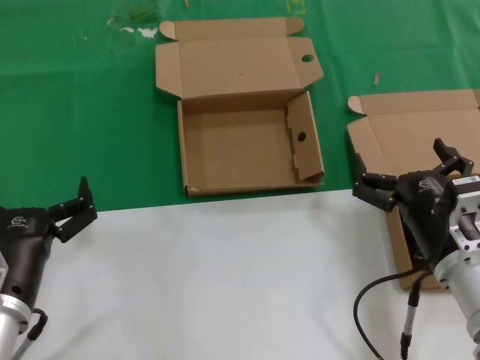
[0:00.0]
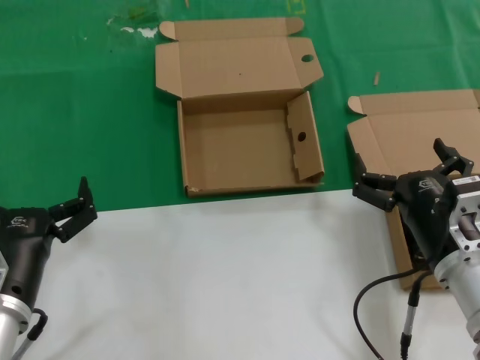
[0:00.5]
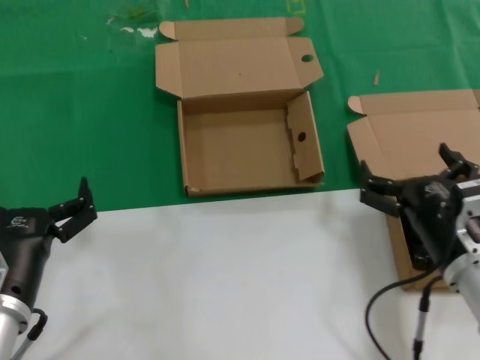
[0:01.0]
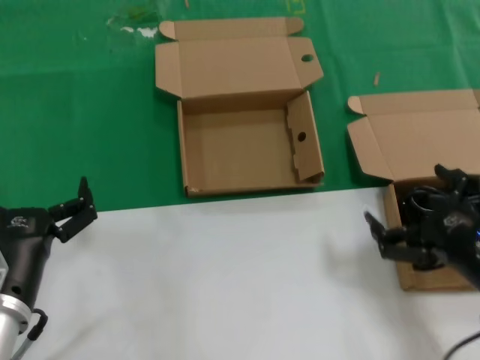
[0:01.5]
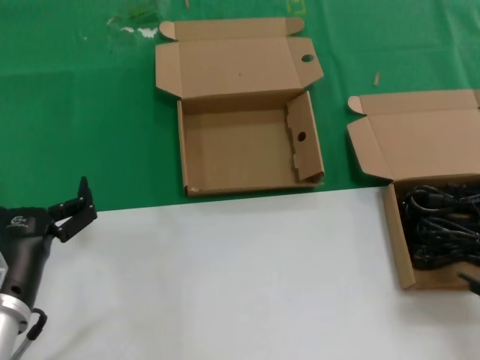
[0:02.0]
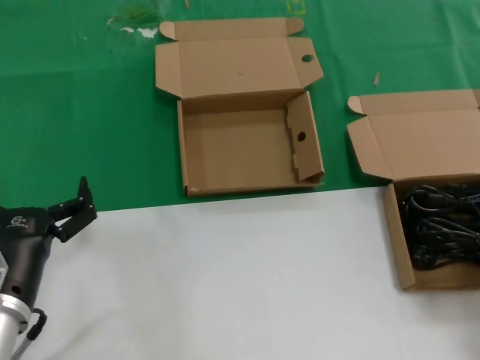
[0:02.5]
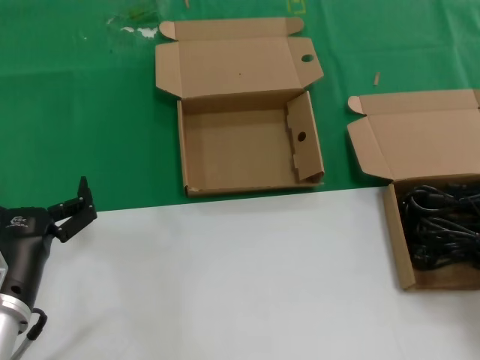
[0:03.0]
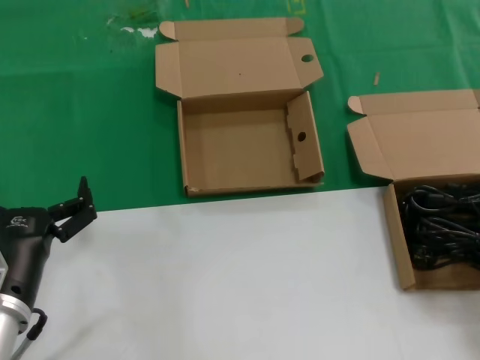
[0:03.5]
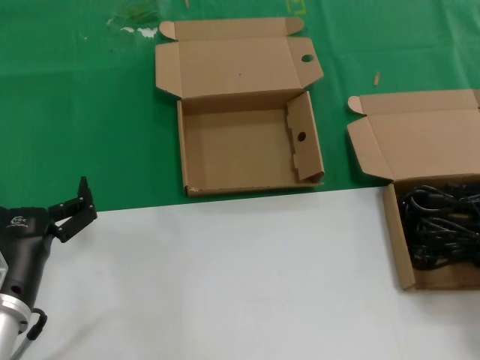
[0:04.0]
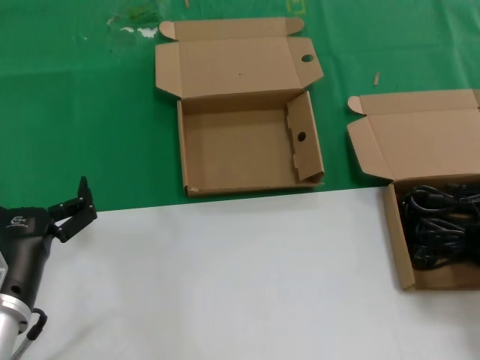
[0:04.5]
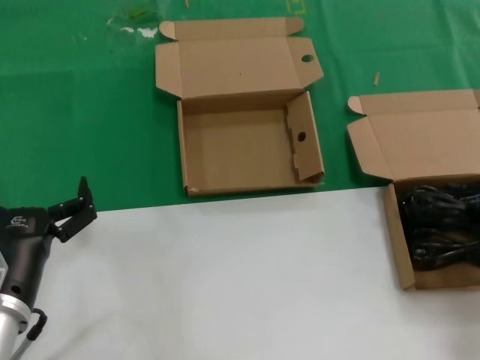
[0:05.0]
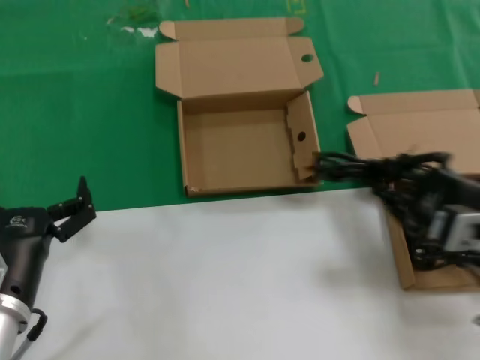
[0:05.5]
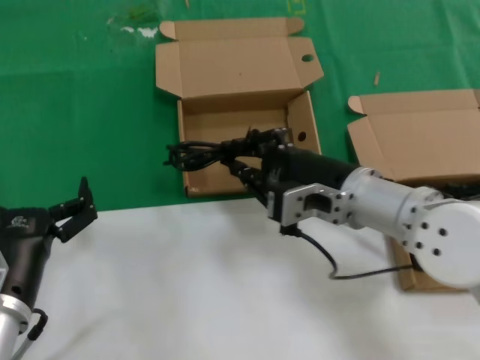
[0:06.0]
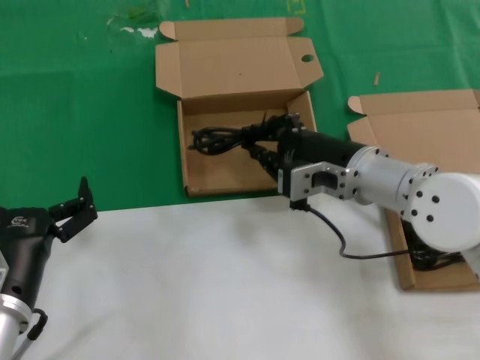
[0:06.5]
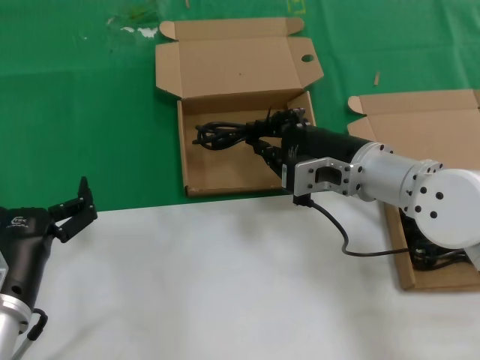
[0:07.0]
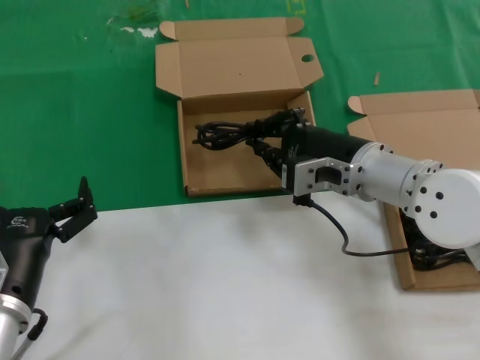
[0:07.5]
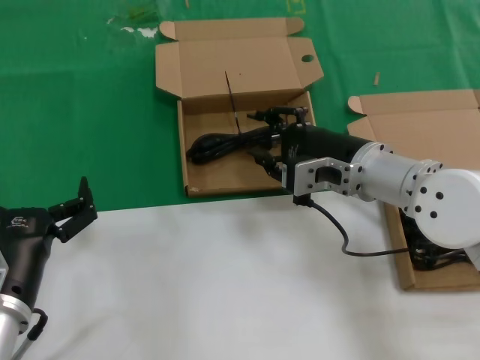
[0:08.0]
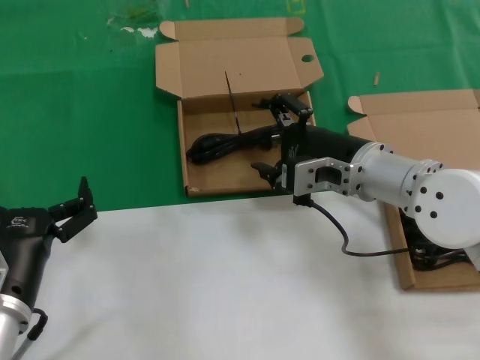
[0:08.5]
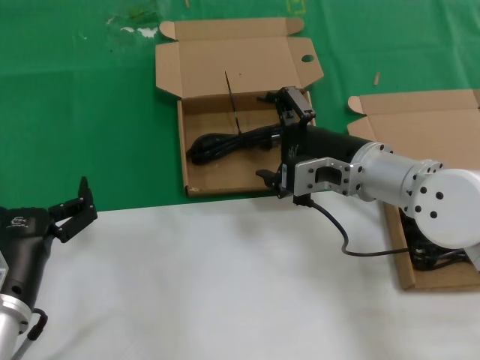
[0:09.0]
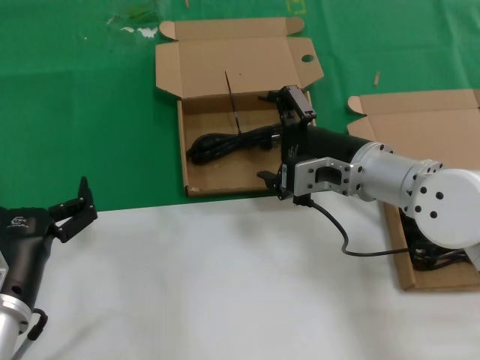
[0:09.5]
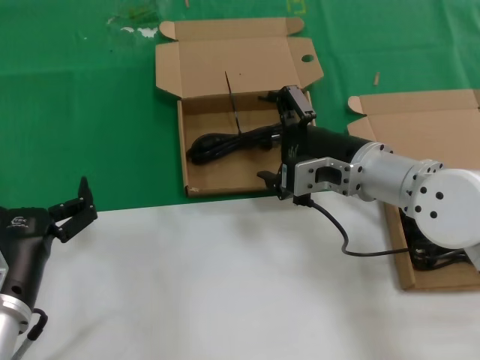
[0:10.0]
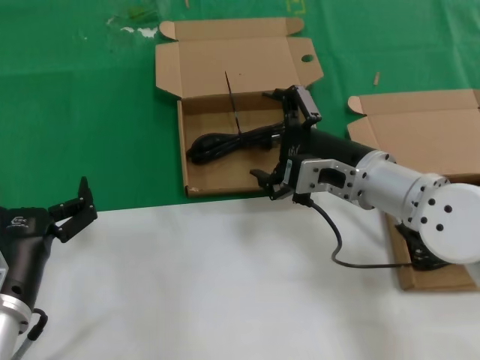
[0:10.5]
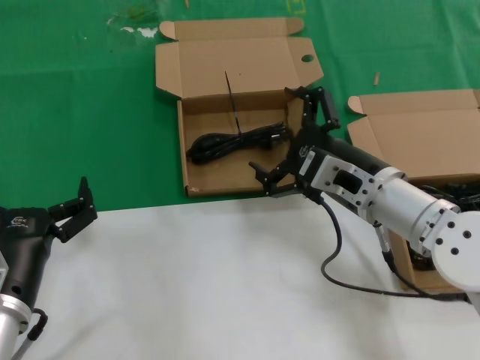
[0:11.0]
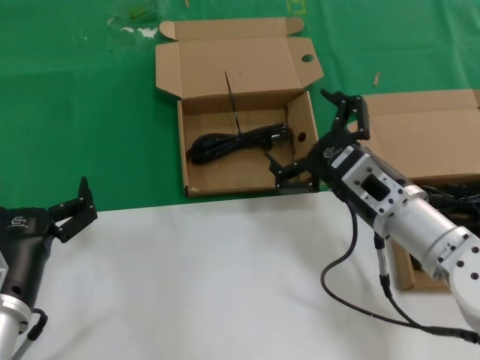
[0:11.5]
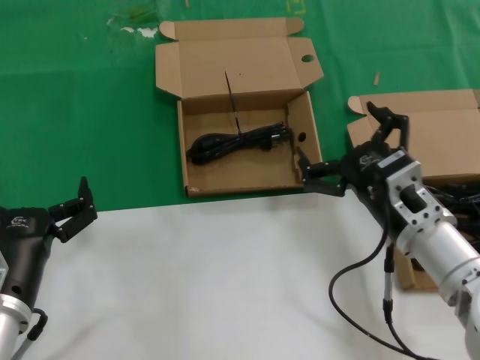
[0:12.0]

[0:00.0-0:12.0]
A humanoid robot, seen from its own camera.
Task of the whole recording: take the parts from the box containing them and put them into an empty box.
Step, 0:00.0 to 0:05.0: Grasp the data cable.
Step, 0:05.5 to 0:09.0: Place the data cable in the another box.
0:00.0 to 0:02.0: The right hand shifts some 20 cm to the right, upward and backward.
0:02.0 to 0:04.0: The right hand shifts by about 5 cm.
0:04.0 to 0:06.0: The right hand shifts approximately 30 cm to the left and forward.
0:06.0 to 0:08.0: The hands move only a little.
0:08.0 to 0:10.0: Neither hand changes place.
0:10.0 to 0:12.0: The right hand heads backward and downward, covering roughly 10 cm.

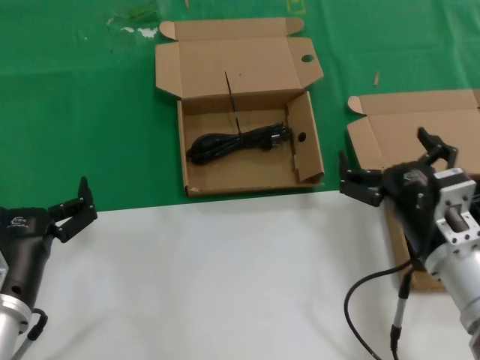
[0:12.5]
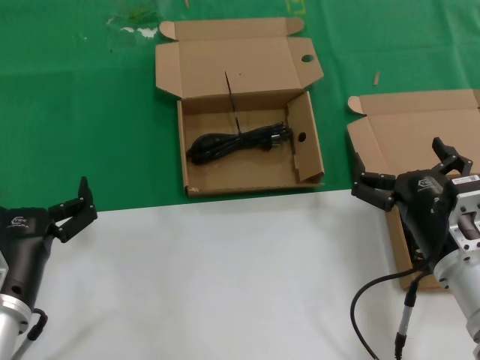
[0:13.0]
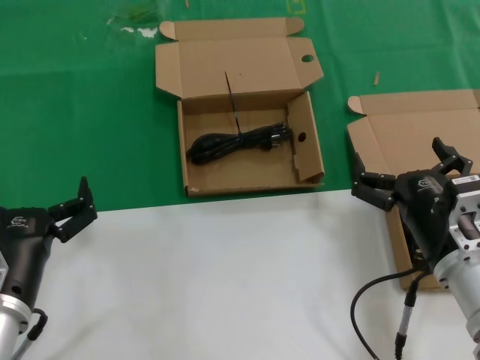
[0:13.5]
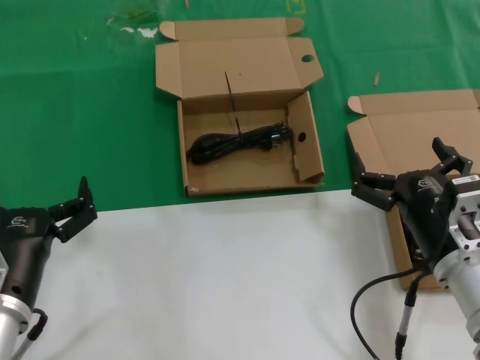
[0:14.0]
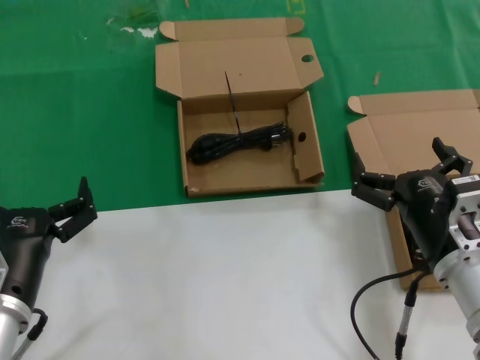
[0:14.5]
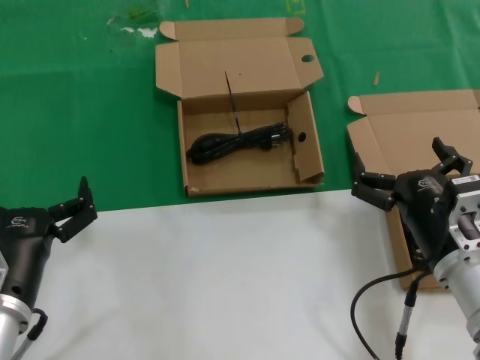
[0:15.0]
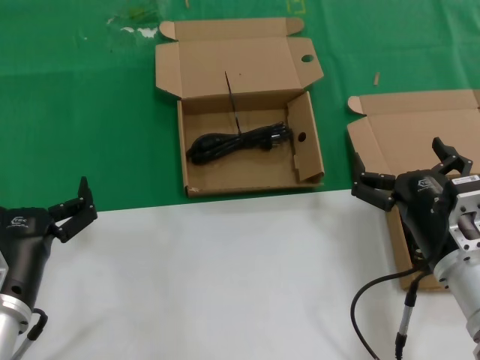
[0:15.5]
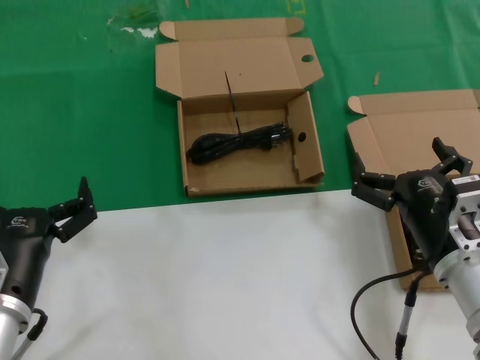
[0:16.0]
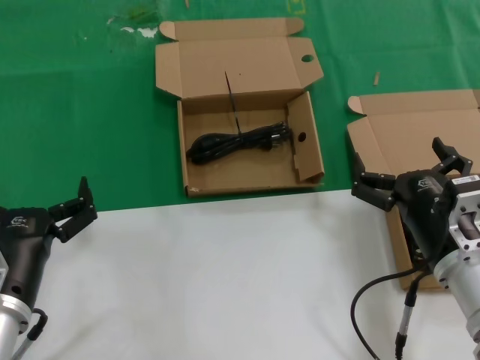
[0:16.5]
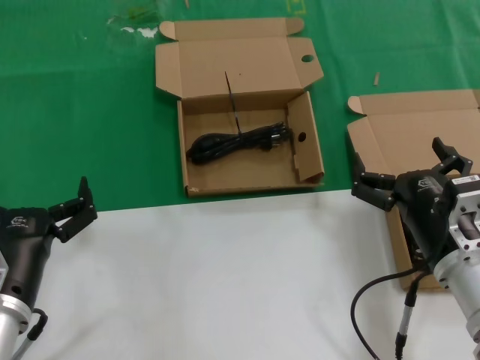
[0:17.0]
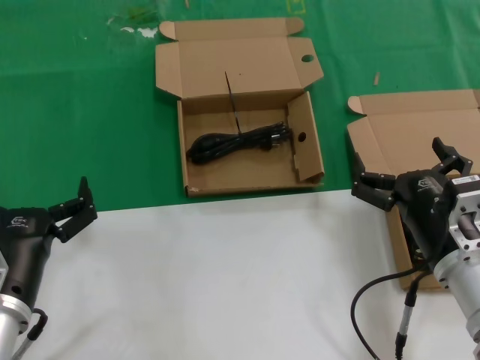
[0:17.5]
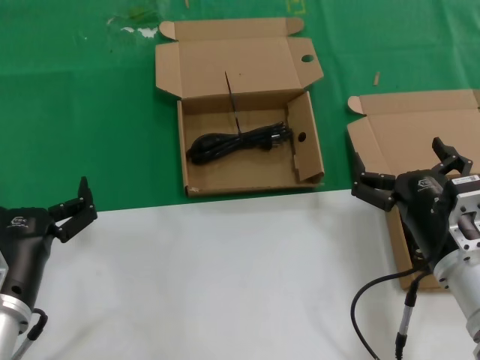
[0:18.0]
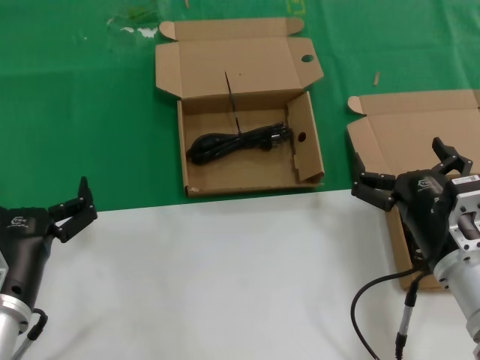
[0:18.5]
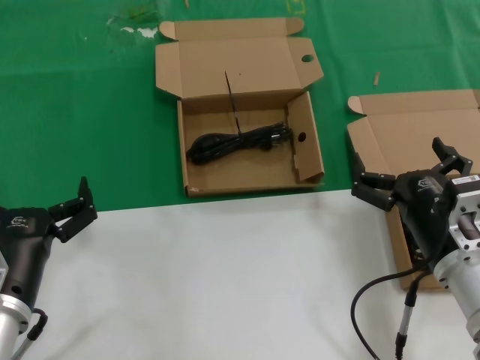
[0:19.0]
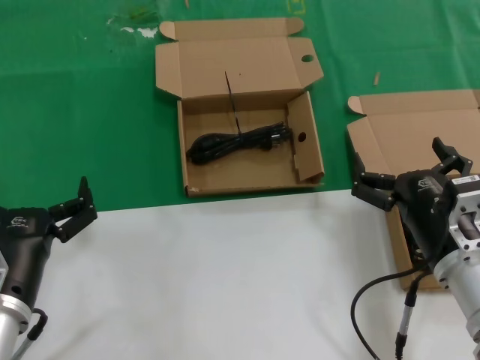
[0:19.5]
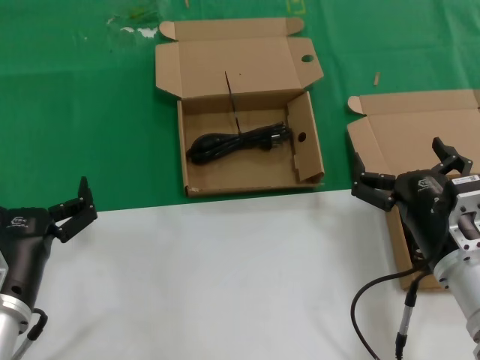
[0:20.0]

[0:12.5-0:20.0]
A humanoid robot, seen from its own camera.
Task of the whole recording: take the parts from the box containing them and put them into an empty box.
0:12.5 to 0:14.5: The hands stay close to where they were, moving slightly.
0:14.5 to 0:20.0: Both hands stay about where they are.

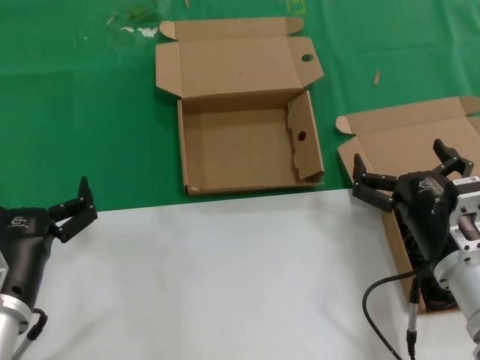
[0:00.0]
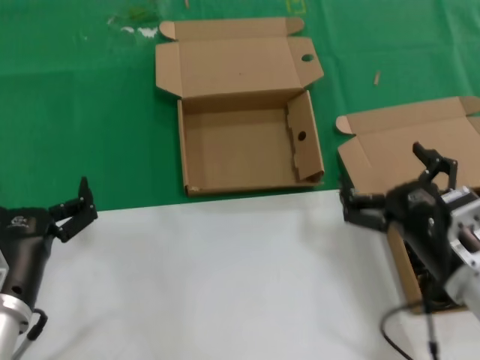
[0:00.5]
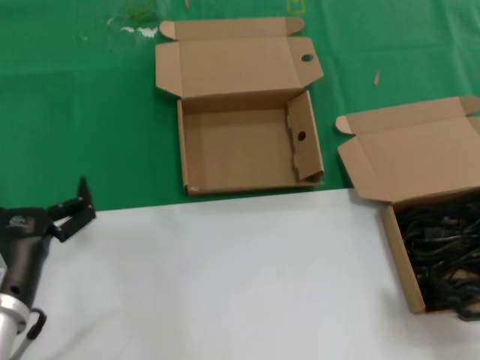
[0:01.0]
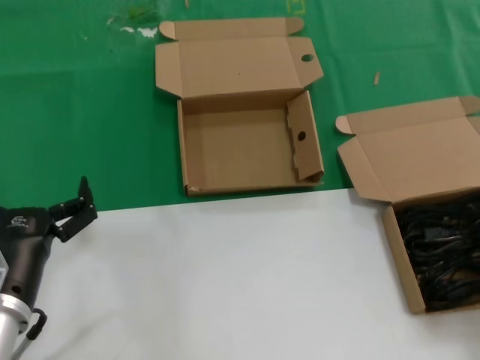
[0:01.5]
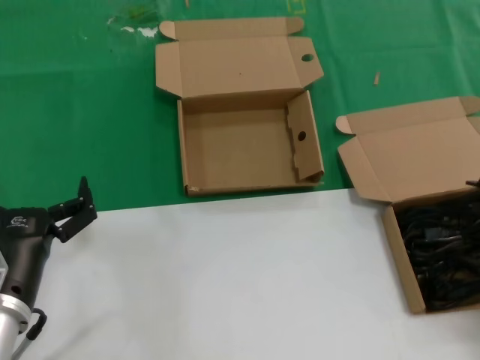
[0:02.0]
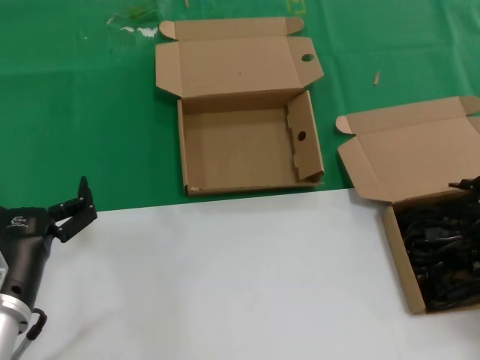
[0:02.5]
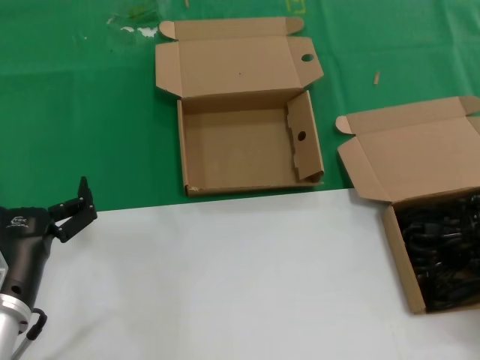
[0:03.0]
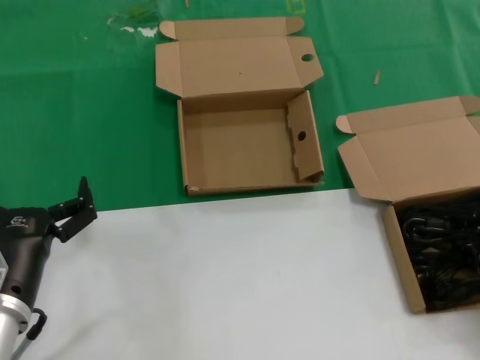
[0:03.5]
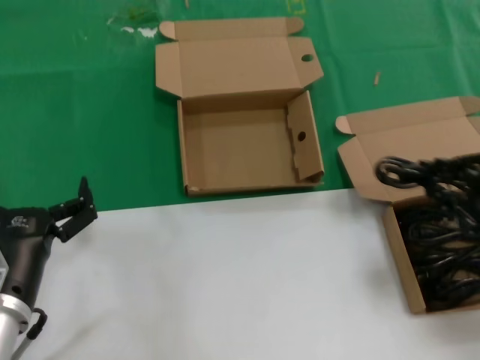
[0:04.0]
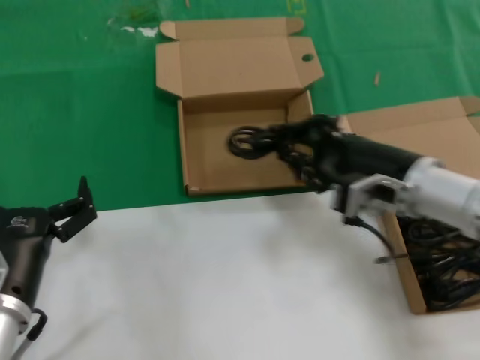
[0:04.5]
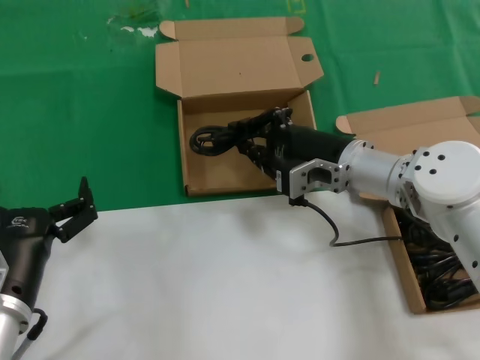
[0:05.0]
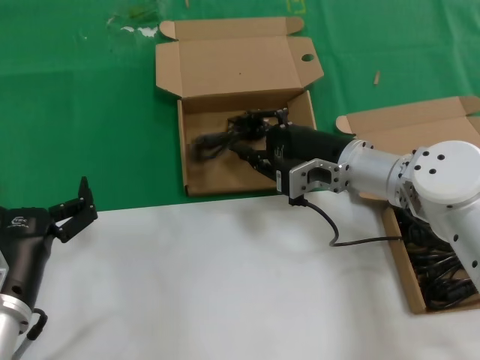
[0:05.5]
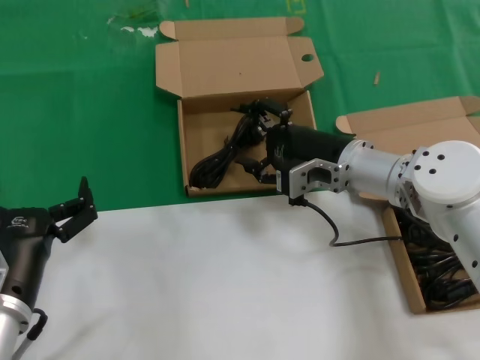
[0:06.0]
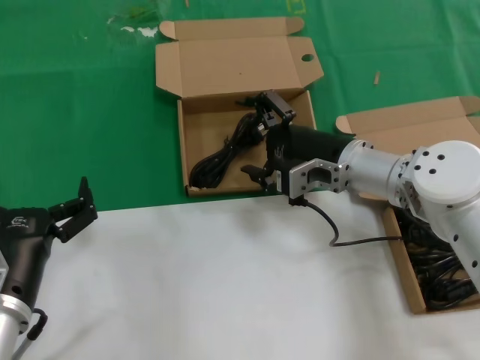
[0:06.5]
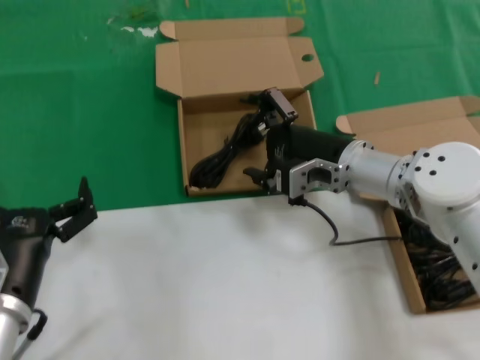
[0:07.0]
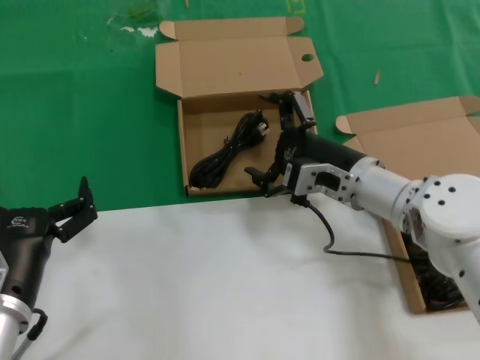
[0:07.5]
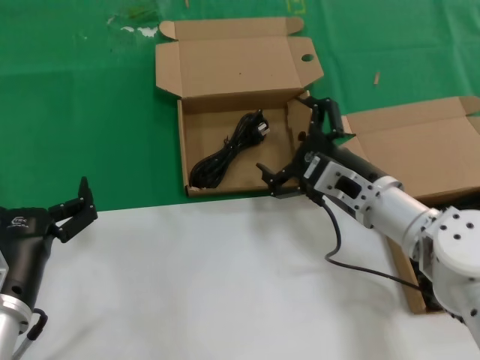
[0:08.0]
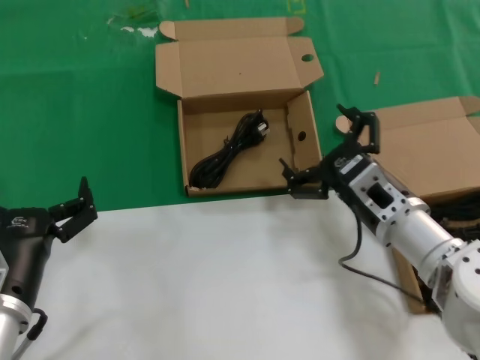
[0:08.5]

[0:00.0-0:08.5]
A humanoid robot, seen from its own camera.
Task of the whole recording: take the parts from the box containing them and put them into an empty box.
Step, 0:00.0 to 0:03.5: Grasp the data cable.
Step, 0:04.0 to 0:07.0: Place the data cable in the another box.
0:00.0 to 0:02.0: The right hand goes roughly 20 cm to the right.
0:02.0 to 0:04.0: The right hand shifts by about 5 cm.
0:04.0 to 0:06.5: The right hand is displaced to the left and forward by some 25 cm.
0:06.5 to 0:08.5: The right hand moves backward and downward, about 10 cm.
